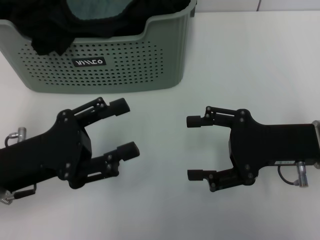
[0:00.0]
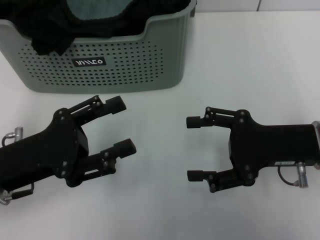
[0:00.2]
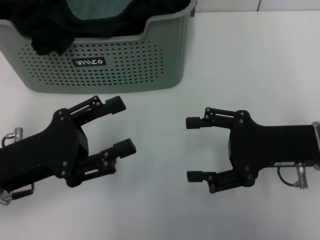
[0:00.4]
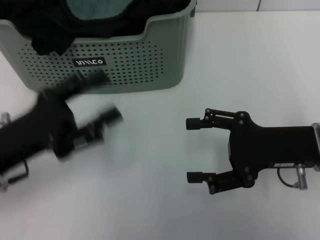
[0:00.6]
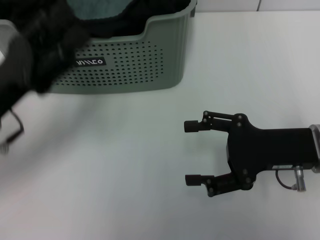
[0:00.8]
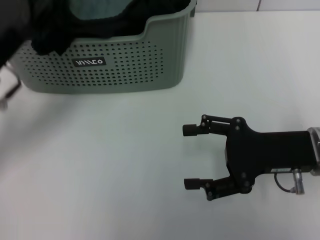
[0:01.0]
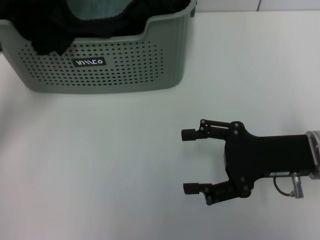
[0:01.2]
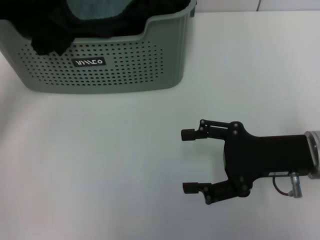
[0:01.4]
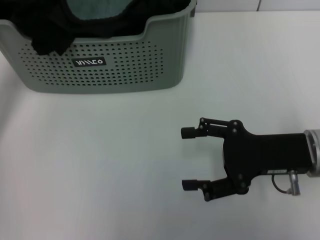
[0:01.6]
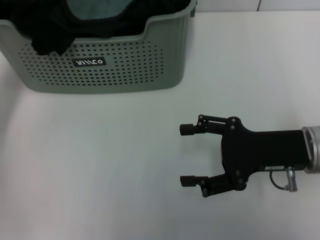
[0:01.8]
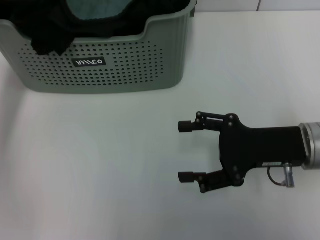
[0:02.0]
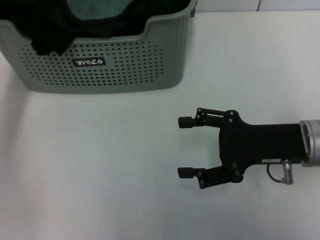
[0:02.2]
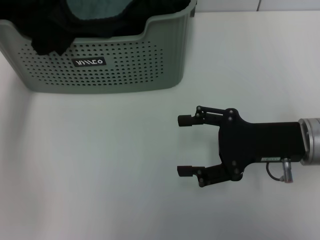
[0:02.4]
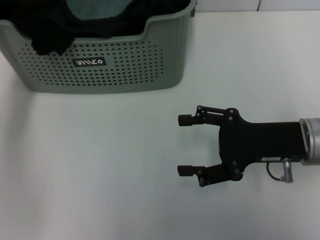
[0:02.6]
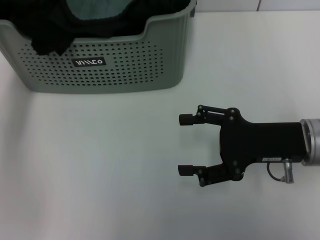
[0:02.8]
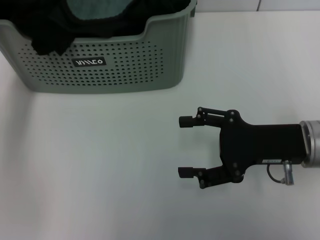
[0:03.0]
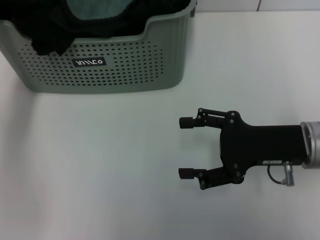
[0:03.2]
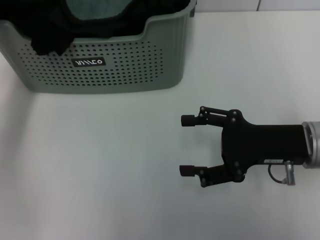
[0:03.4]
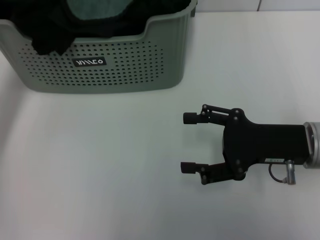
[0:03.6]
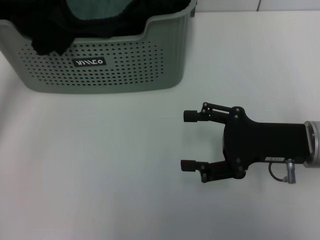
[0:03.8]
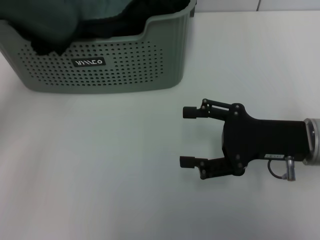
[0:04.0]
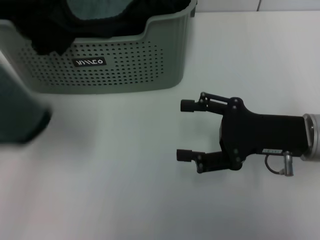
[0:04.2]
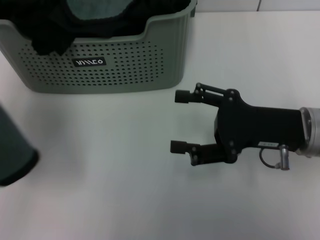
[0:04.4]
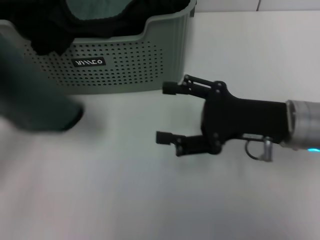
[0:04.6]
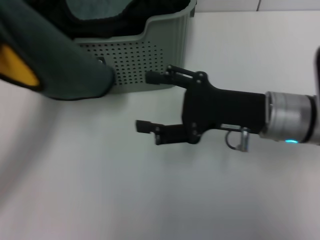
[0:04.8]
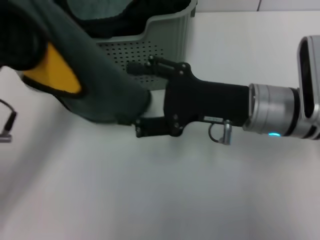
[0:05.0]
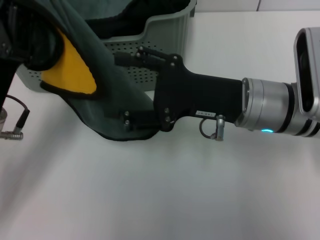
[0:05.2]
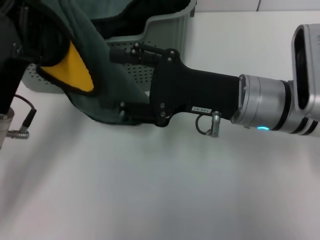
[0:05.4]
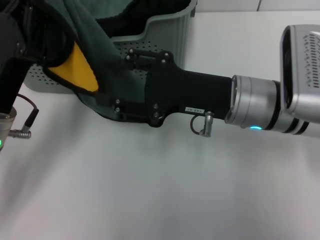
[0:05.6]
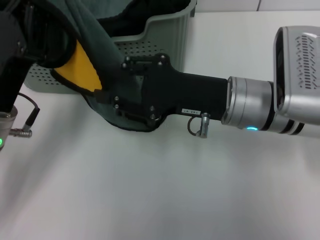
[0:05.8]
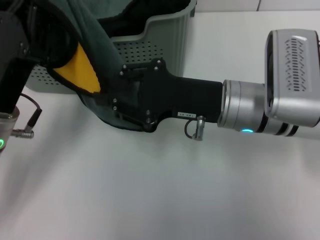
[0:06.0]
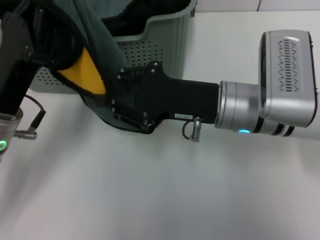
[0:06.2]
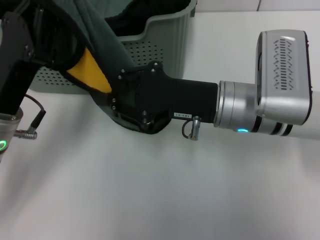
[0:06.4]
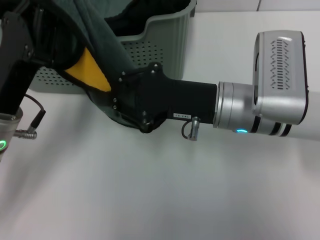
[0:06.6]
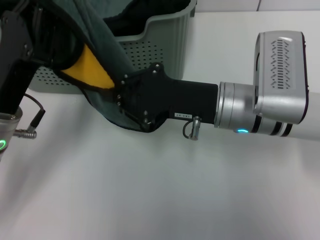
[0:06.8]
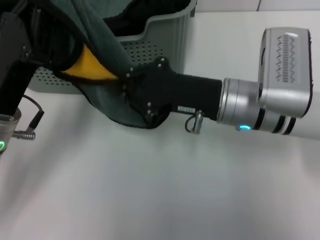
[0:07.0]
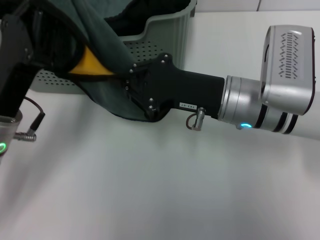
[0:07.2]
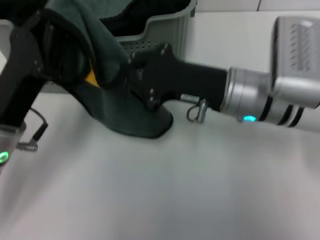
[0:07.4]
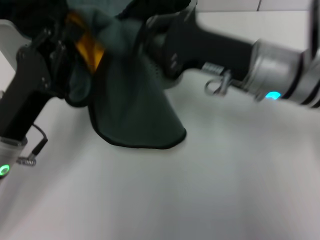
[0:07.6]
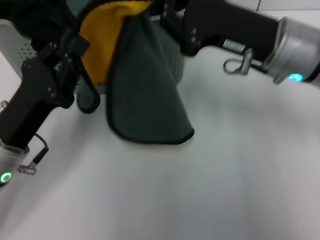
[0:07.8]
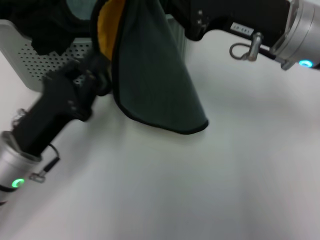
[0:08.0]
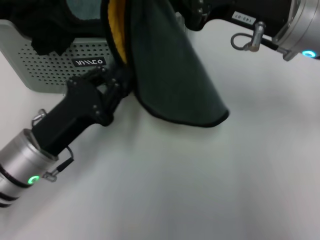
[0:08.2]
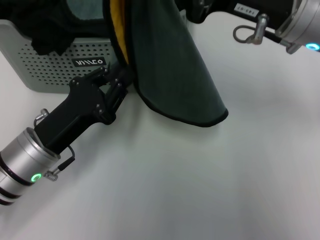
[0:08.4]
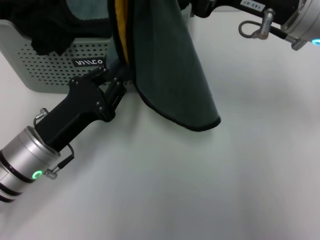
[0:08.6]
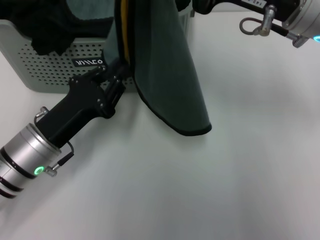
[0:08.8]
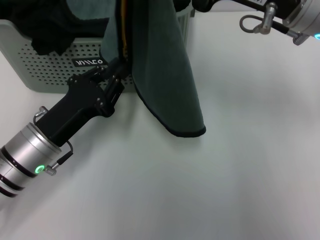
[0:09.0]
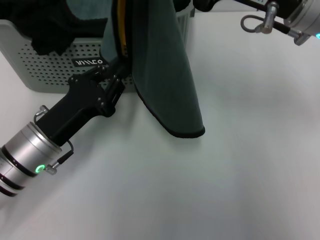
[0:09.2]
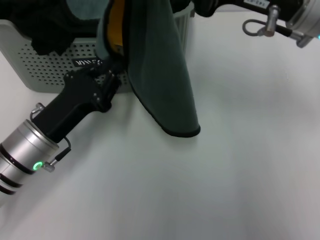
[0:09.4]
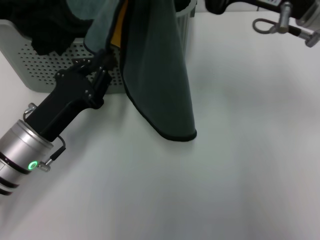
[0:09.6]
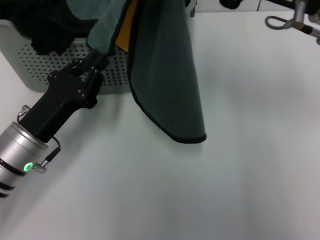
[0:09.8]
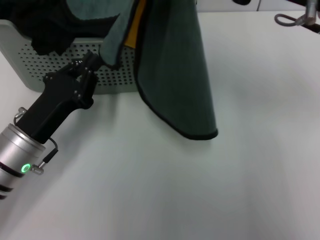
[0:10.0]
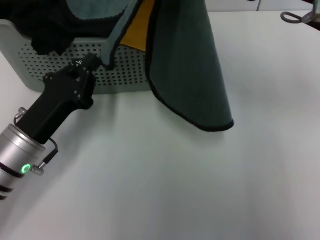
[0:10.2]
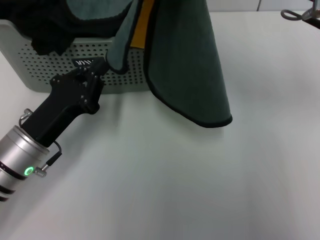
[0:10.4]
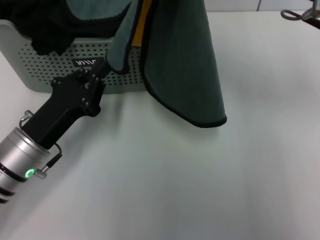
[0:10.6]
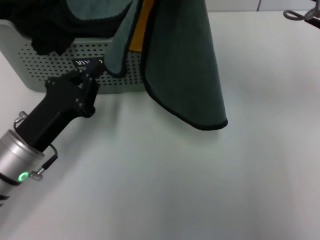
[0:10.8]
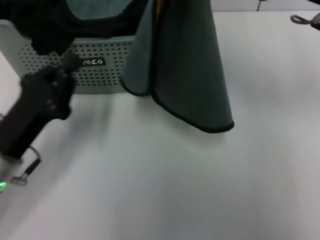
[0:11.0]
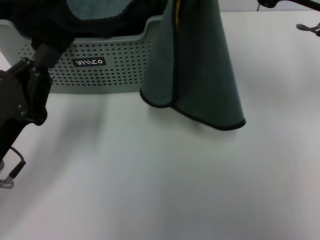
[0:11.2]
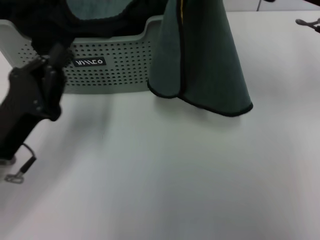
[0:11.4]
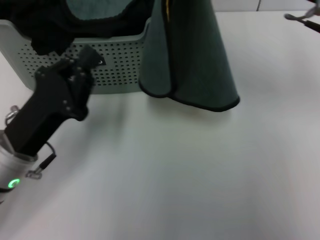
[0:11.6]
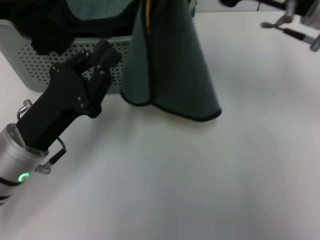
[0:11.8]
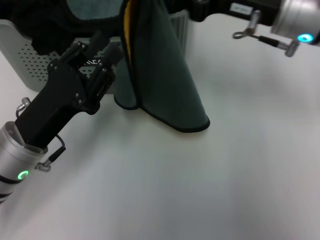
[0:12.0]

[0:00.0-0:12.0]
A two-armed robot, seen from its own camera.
Task of the whole recording: pick up the towel from the storage box and lay it flat on the table.
Step, 0:00.0 to 0:03.6: Pick up a towel with the left gripper.
0:00.0 to 0:01.6: The left gripper goes approximately 15 cm forward and upward.
0:01.6 to 0:03.0: The left gripper travels forward by about 5 cm, and closes.
0:03.0 to 0:04.4: The left gripper is displaced backward by approximately 20 cm.
0:04.4 to 0:06.0: The right gripper heads to the left, covering some 10 cm, and closes its fingers, while the left gripper heads to the right and downward, covering some 10 cm.
0:06.0 to 0:07.6: The right gripper closes its fingers.
0:07.6 to 0:09.0: The right gripper goes some 10 cm upward.
0:10.4 to 0:12.0: The right gripper moves about 5 cm.

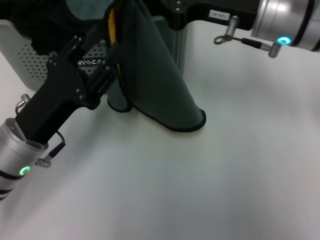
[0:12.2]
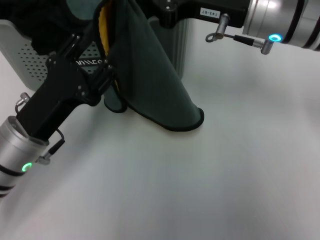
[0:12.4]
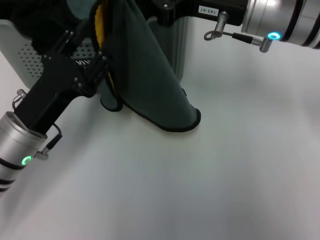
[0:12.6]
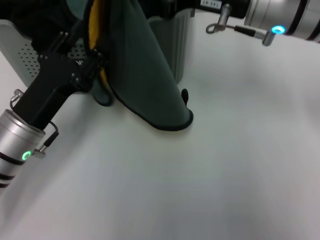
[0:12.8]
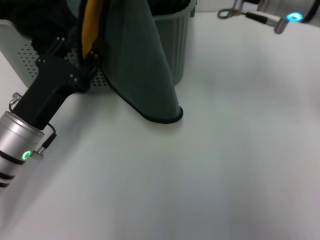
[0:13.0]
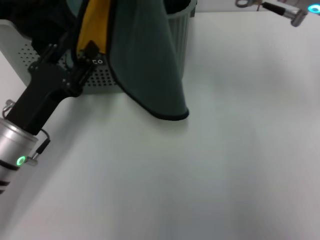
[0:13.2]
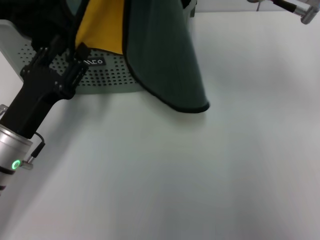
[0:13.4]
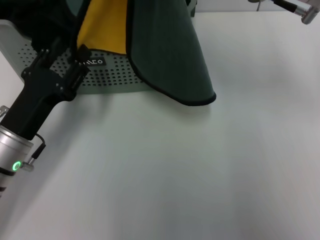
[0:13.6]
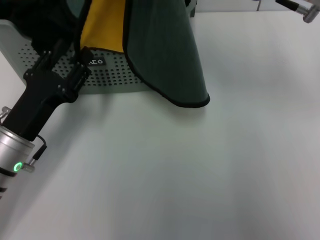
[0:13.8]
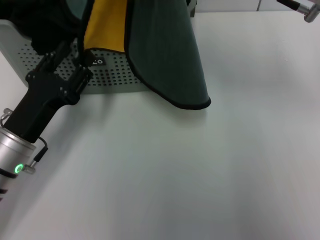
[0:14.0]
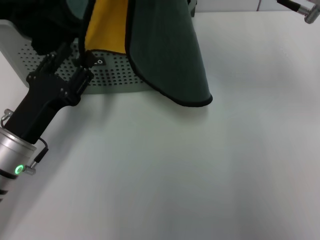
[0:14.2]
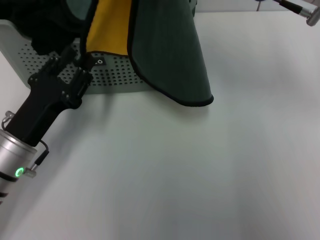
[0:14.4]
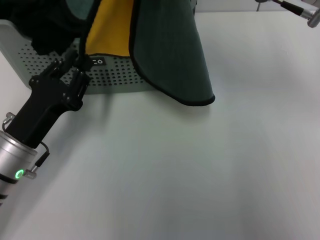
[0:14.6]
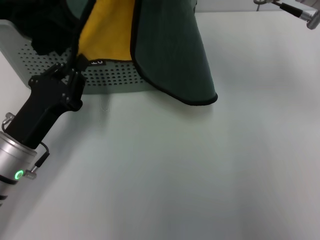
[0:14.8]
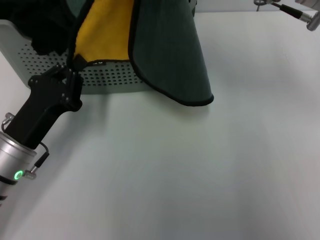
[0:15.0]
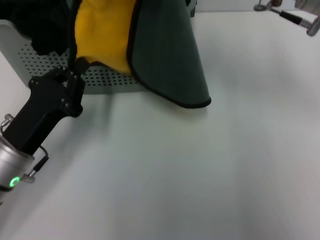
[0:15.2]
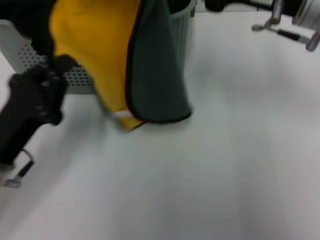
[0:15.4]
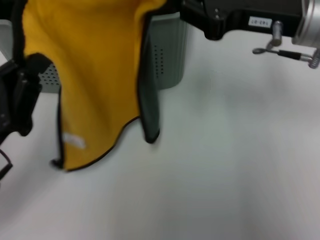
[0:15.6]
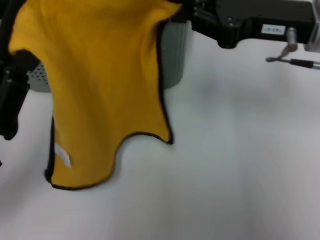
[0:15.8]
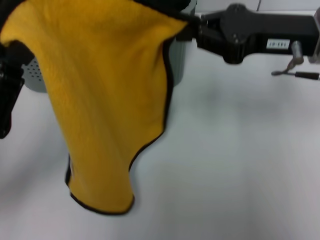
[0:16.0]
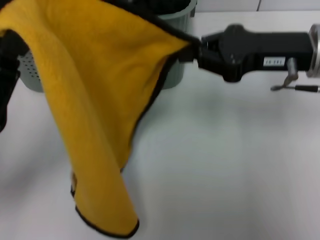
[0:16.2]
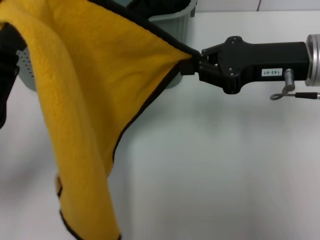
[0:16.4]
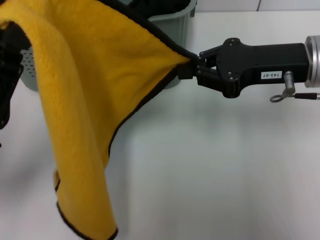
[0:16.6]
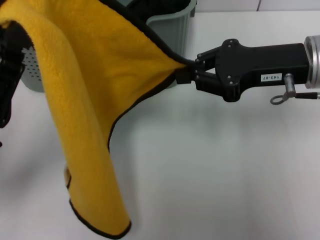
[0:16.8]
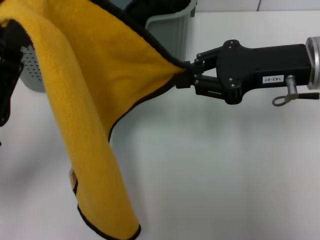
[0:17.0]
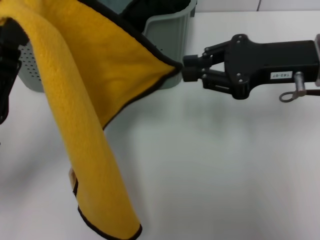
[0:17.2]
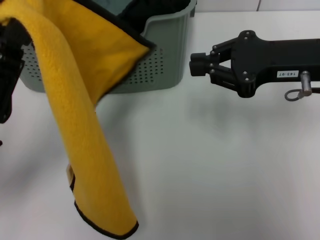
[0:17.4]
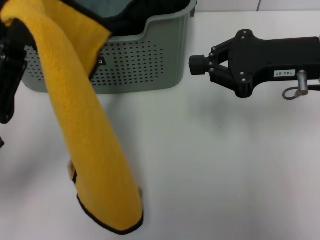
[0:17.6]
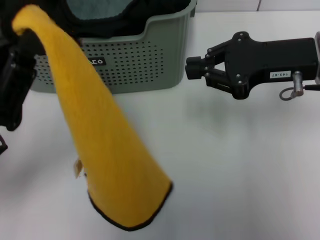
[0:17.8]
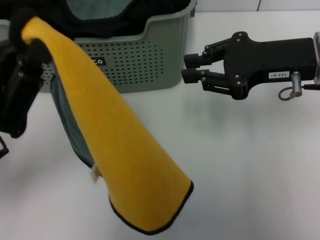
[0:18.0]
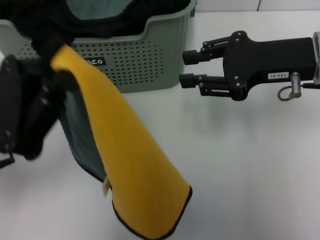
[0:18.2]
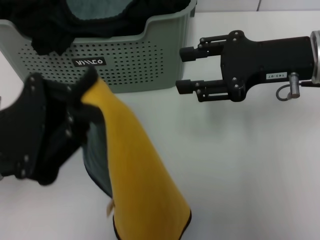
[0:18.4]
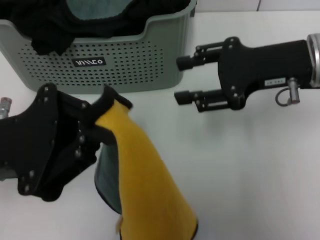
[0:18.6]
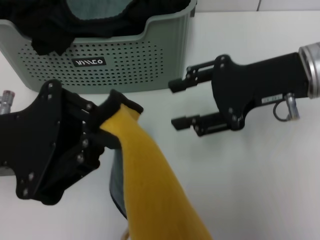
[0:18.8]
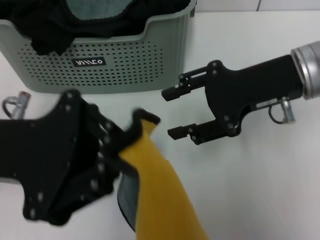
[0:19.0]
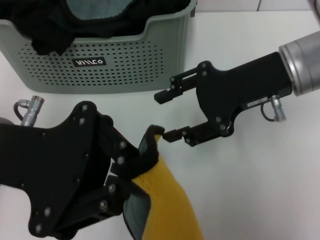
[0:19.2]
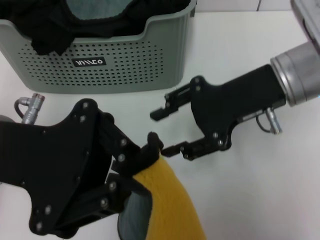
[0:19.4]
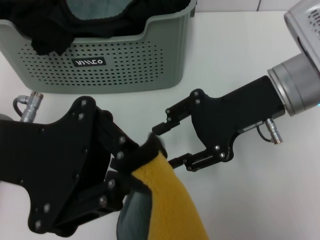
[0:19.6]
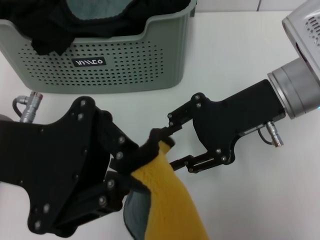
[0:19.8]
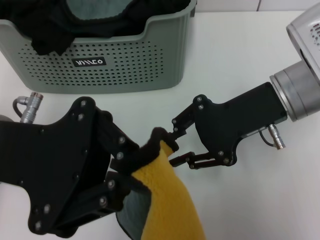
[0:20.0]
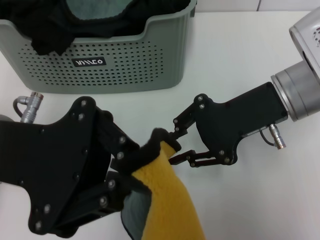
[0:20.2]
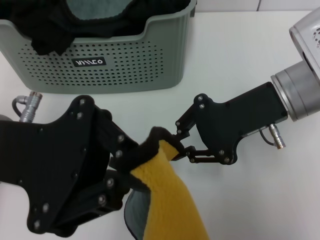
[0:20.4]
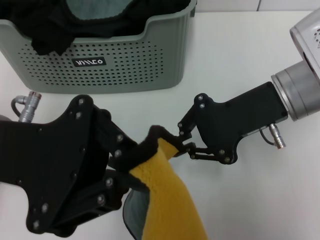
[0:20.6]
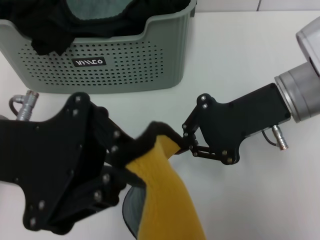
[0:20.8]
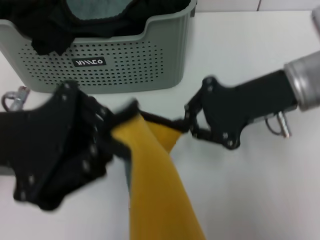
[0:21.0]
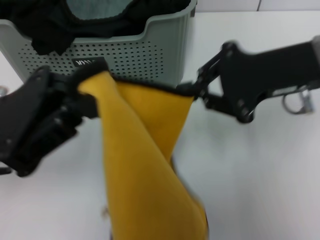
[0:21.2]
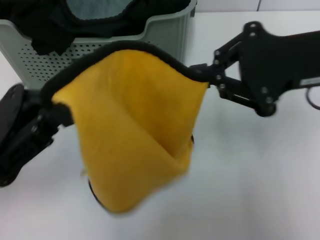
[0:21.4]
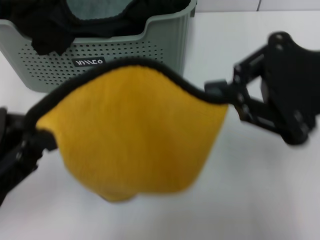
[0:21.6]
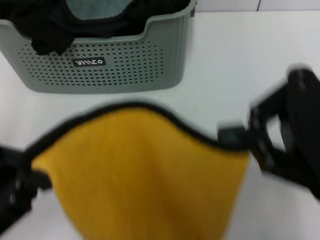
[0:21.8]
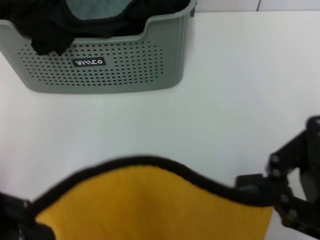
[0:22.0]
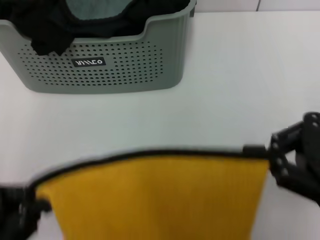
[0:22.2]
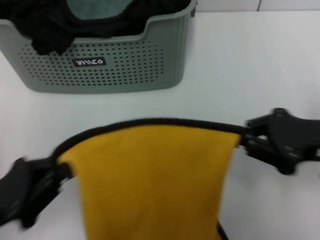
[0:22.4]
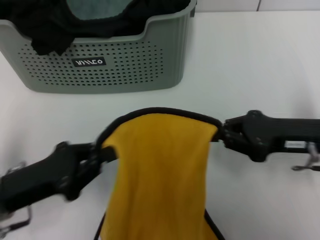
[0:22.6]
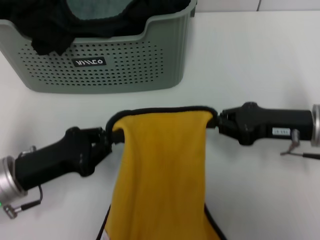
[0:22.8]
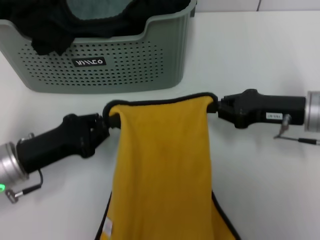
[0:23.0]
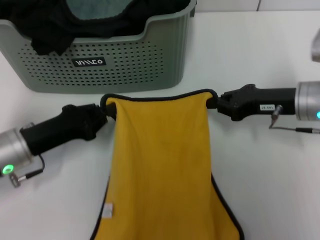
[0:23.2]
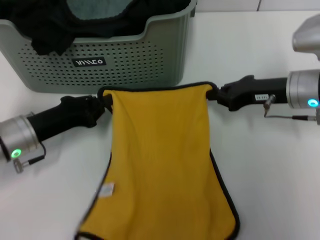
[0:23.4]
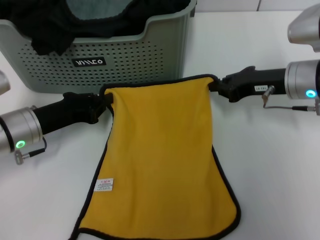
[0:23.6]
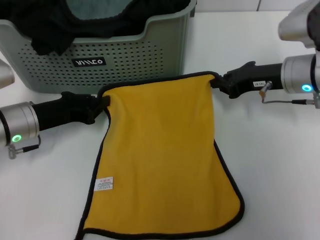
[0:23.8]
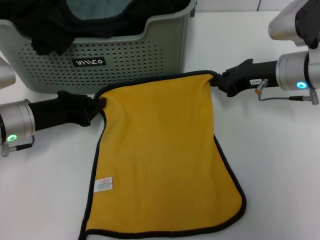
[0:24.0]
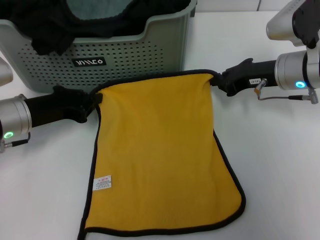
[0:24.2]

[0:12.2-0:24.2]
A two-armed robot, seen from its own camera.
Task of the whole recording: pick up the towel from the storage box and lay it flat on the table.
Step, 0:12.2 to 0:20.6: Spread the towel flat with the left gripper.
0:12.2 to 0:13.8: The right gripper shifts by some 5 cm.
0:13.8 to 0:15.2: The left gripper closes up.
0:15.2 to 0:16.6: The right gripper changes place by roughly 5 cm; the left gripper travels upward by some 10 cm.
0:18.2 to 0:19.8: The right gripper moves approximately 5 cm, and opens its fingers. The left gripper moves approximately 5 cm.
0:19.8 to 0:21.2: The right gripper closes its fingers.
0:21.2 to 0:22.6: Both grippers travel together downward, some 10 cm. The left gripper reaches about 10 cm backward, then returns.
0:22.6 to 0:24.2: Both grippers move forward, roughly 10 cm.
